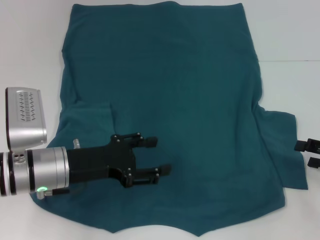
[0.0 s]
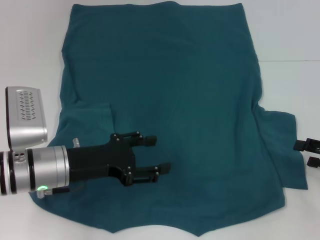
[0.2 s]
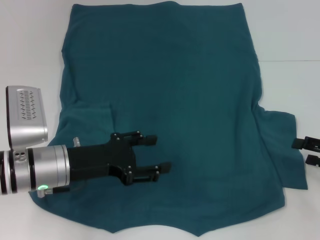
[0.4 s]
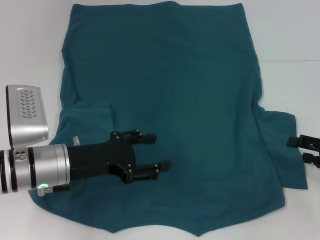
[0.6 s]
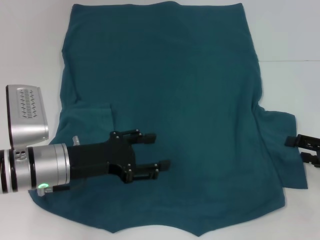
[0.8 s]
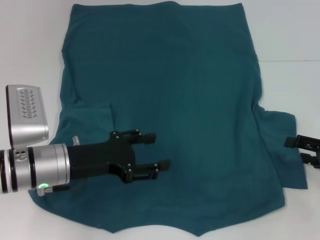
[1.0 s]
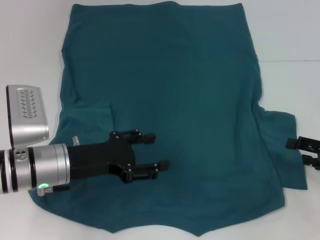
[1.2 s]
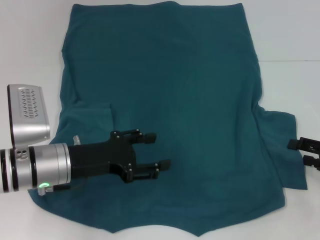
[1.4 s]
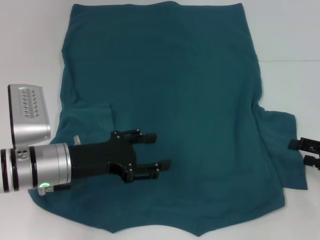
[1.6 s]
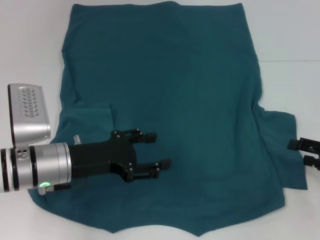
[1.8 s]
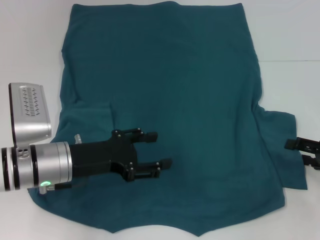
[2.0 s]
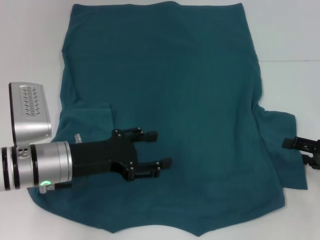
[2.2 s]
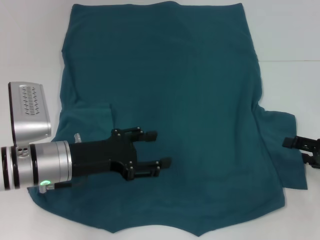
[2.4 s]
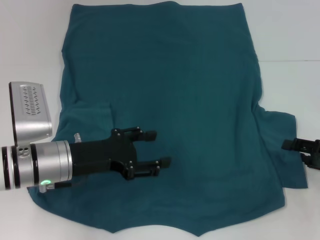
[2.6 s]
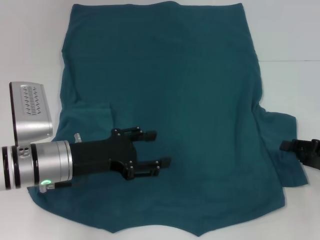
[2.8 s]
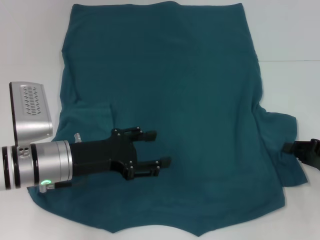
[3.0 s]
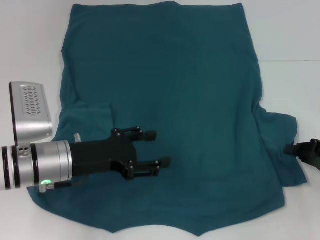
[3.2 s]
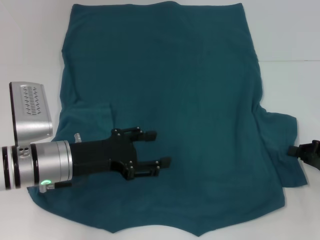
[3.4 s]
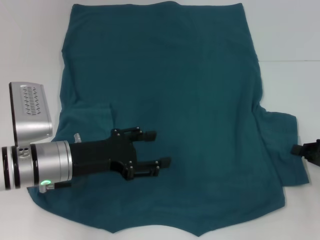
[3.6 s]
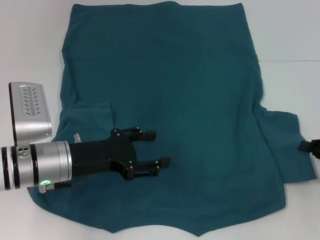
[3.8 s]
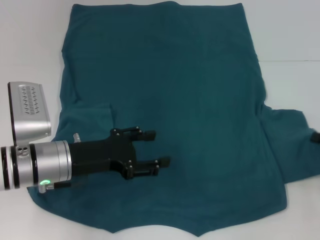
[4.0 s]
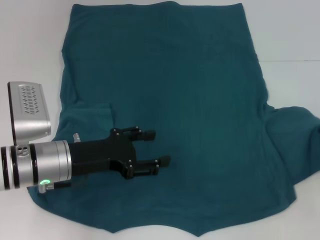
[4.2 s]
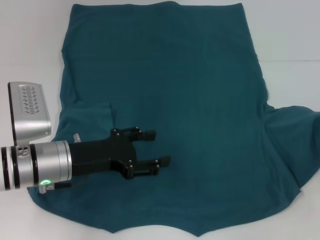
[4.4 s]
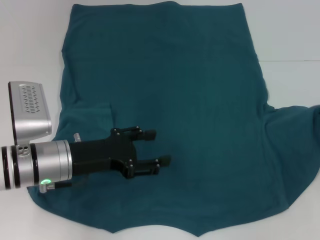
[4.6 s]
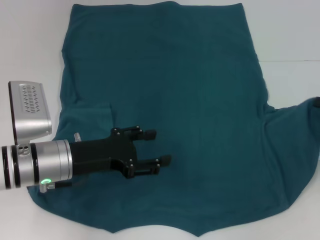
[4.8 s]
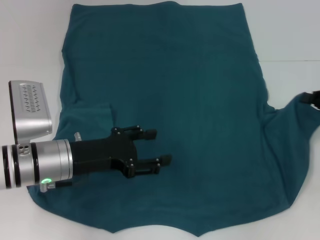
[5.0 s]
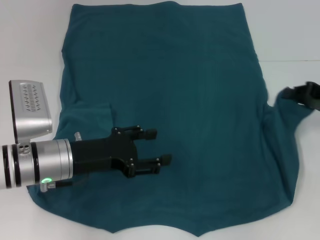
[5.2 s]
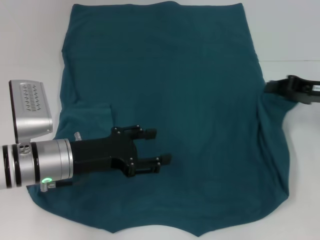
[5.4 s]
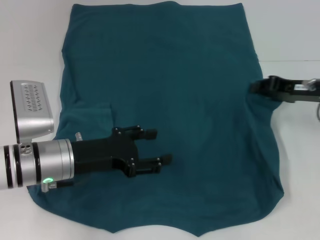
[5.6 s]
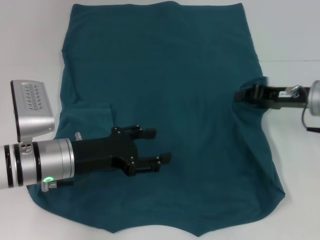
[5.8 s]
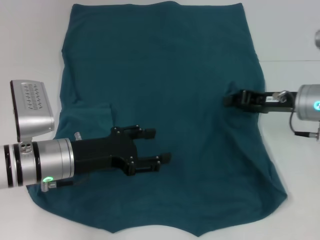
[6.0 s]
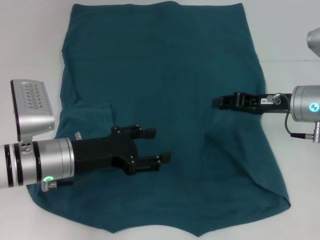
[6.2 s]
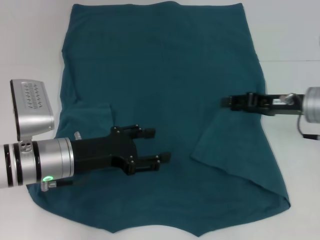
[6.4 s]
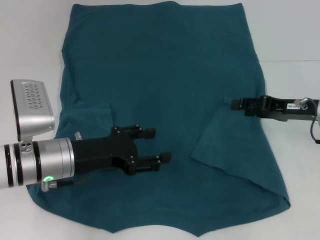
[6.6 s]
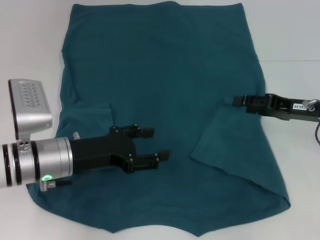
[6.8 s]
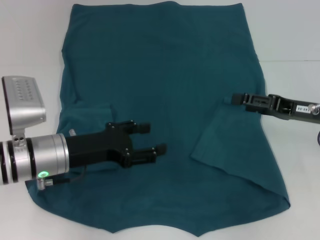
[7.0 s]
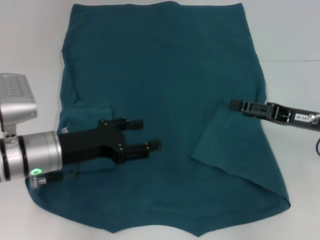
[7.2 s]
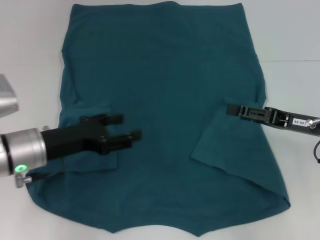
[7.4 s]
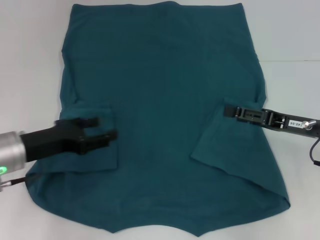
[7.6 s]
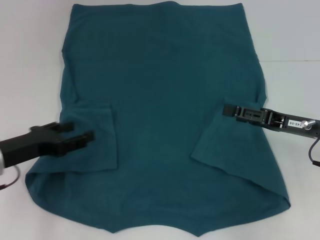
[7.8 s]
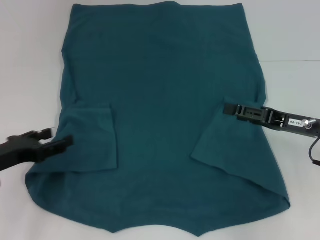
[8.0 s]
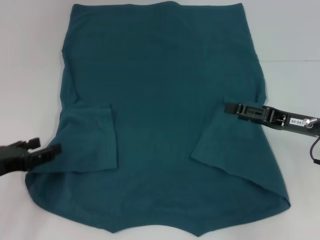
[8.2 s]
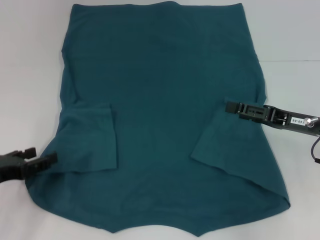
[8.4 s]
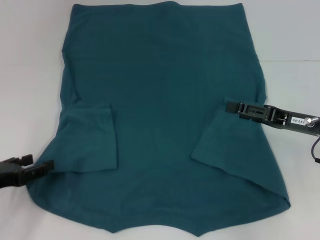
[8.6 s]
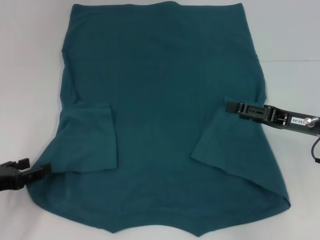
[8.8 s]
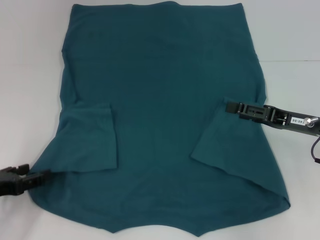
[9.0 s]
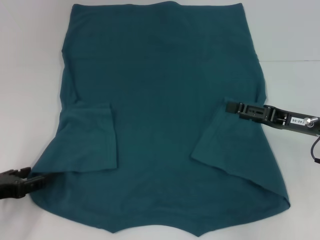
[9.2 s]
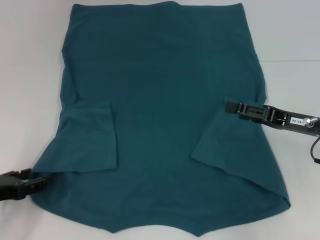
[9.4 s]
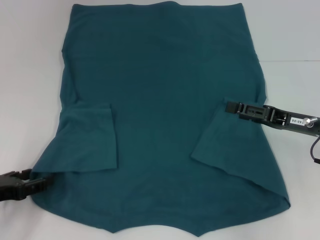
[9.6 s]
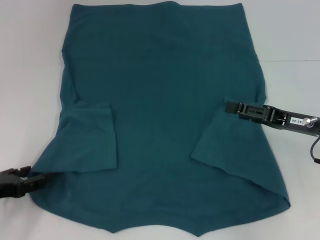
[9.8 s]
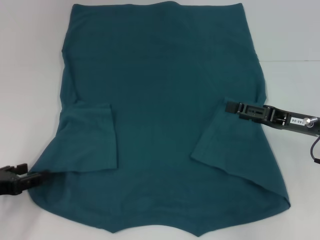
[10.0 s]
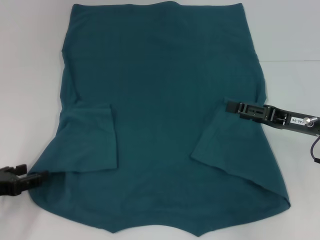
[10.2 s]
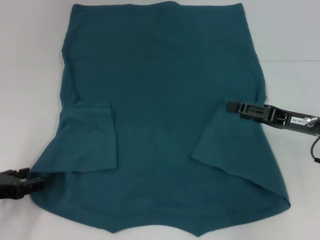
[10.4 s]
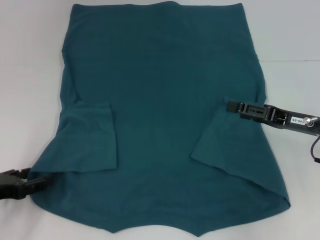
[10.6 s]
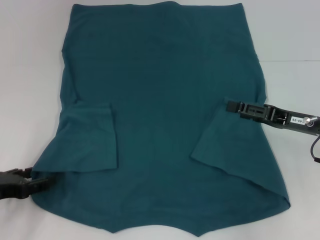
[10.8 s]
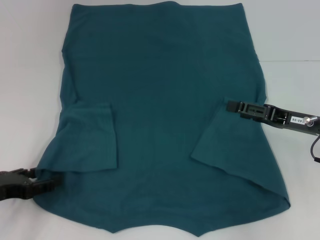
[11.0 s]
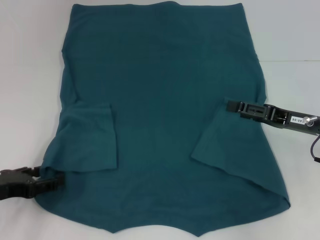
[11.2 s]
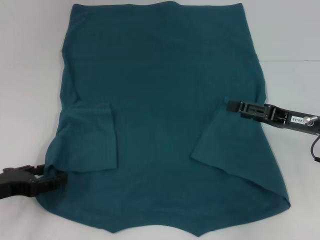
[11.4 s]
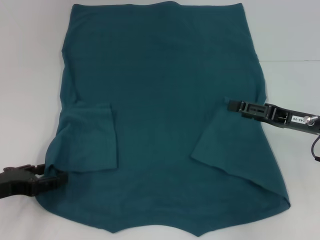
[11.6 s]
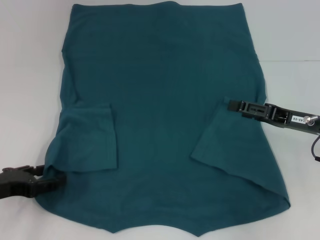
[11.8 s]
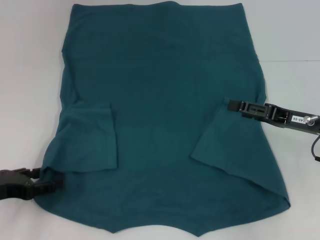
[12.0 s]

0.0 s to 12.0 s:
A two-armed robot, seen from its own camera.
Step, 0.0 to 6.2 s: Fold the bottom right sleeve to the right.
0.0 to 1.6 s: The grippers stay close to where they were, moving slightly.
1.6 to 3.0 s: The right gripper closes.
3.0 to 4.4 s: The right gripper moves approximately 5 cm, and closes up.
4.4 to 6.0 s: The right gripper goes about 15 cm to the left and forward.
6.0 to 7.6 s: The left gripper goes roughly 5 cm to the left, while the right gripper travels backward by some 5 cm, and opens its fingers.
7.6 to 9.0 s: The left gripper is displaced to the left and backward by about 10 cm.
9.0 to 10.4 s: Both grippers stay put.
10.4 to 12.0 s: There are only small adjustments of the grippers.

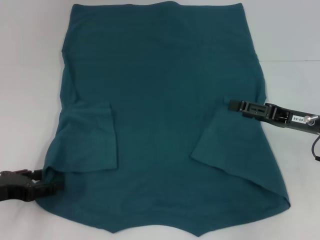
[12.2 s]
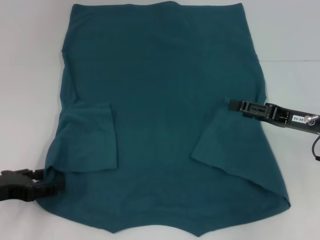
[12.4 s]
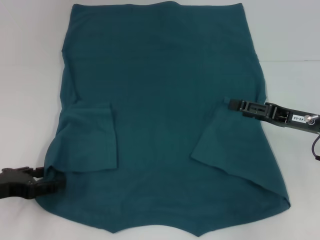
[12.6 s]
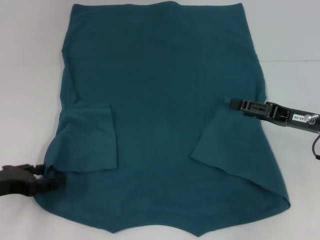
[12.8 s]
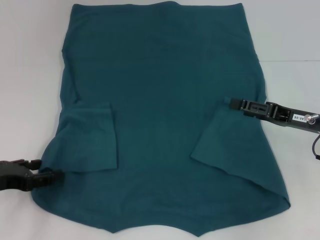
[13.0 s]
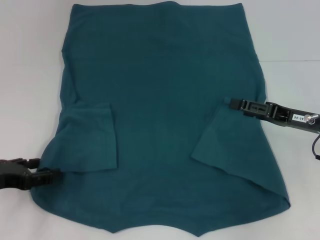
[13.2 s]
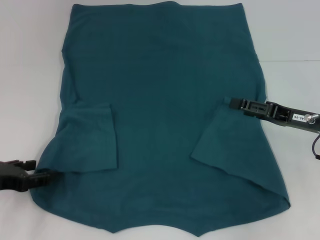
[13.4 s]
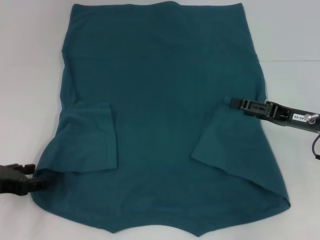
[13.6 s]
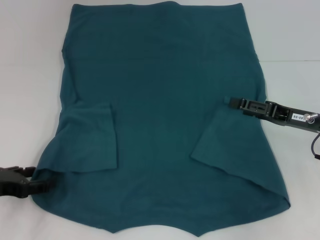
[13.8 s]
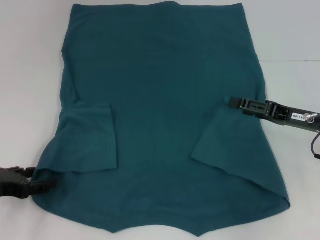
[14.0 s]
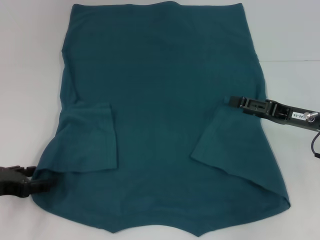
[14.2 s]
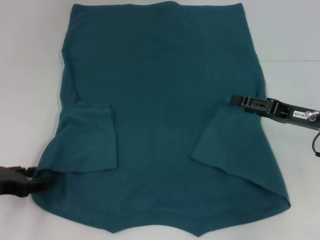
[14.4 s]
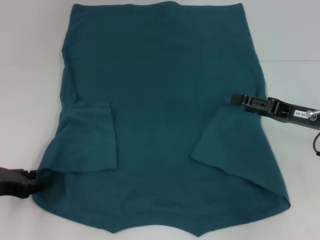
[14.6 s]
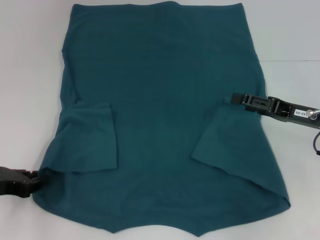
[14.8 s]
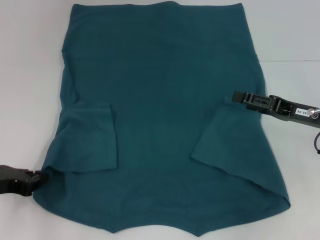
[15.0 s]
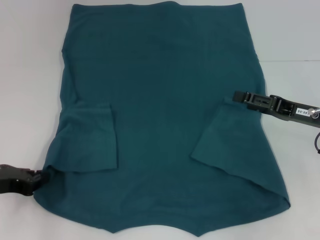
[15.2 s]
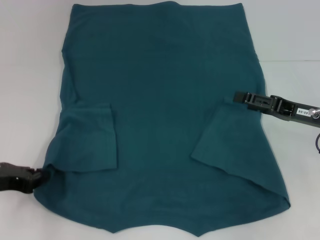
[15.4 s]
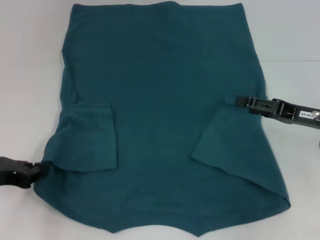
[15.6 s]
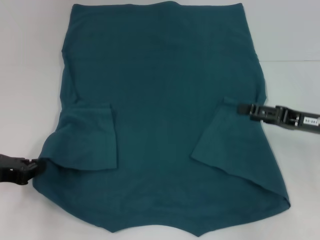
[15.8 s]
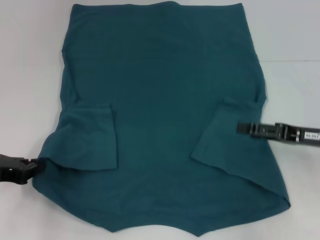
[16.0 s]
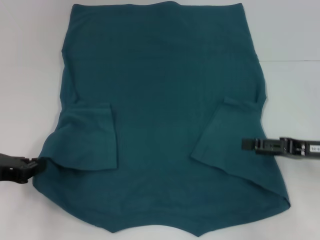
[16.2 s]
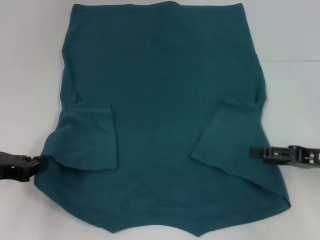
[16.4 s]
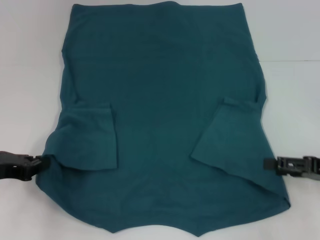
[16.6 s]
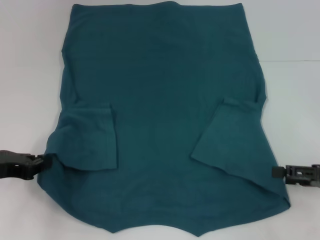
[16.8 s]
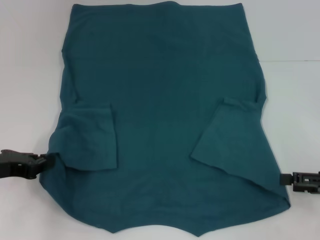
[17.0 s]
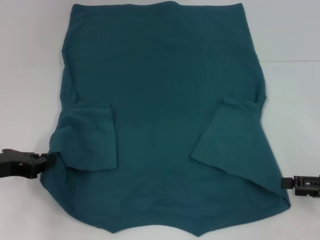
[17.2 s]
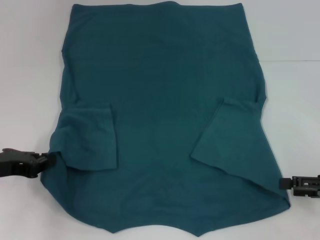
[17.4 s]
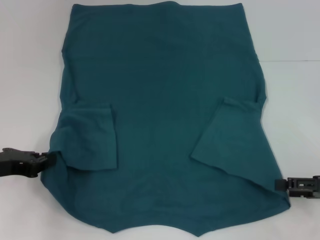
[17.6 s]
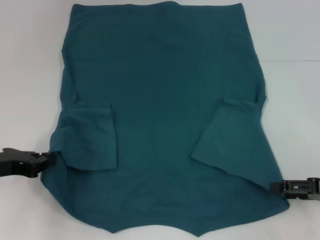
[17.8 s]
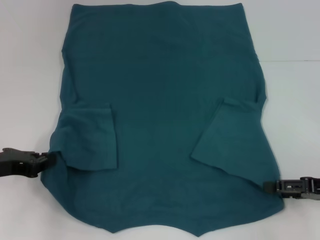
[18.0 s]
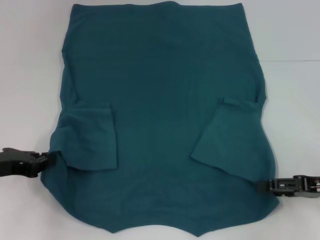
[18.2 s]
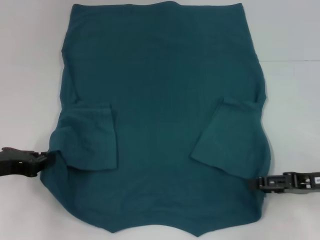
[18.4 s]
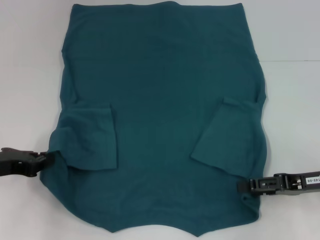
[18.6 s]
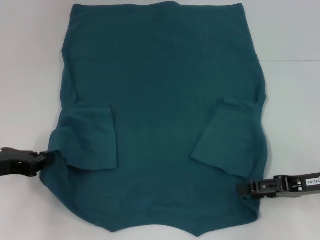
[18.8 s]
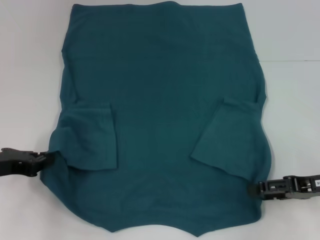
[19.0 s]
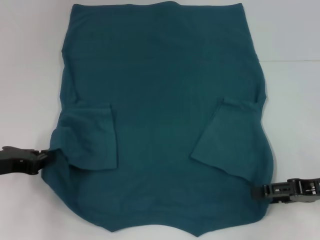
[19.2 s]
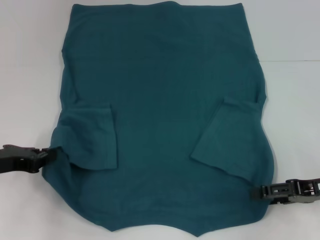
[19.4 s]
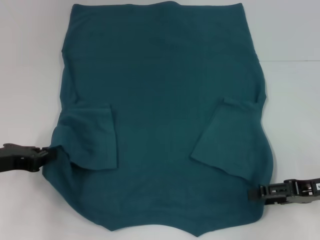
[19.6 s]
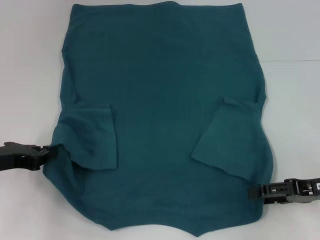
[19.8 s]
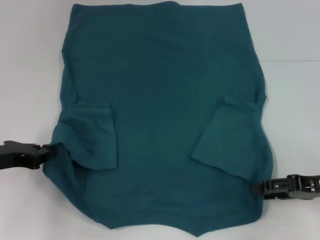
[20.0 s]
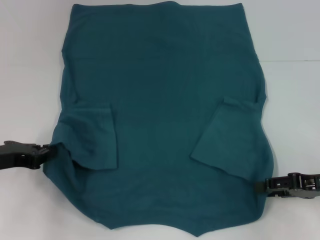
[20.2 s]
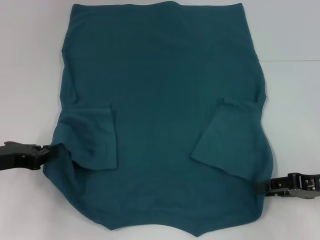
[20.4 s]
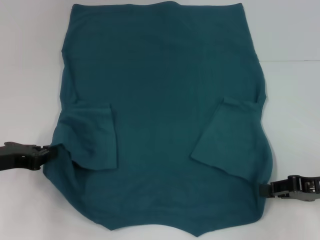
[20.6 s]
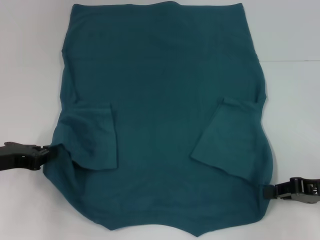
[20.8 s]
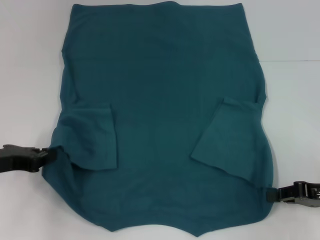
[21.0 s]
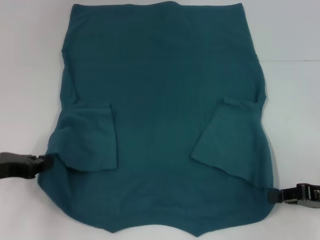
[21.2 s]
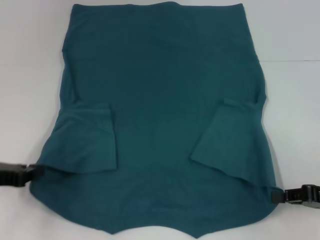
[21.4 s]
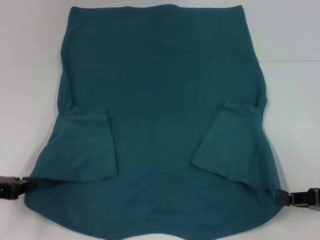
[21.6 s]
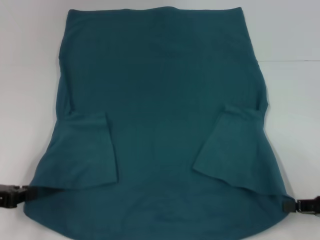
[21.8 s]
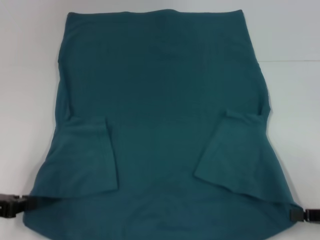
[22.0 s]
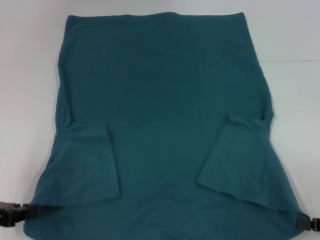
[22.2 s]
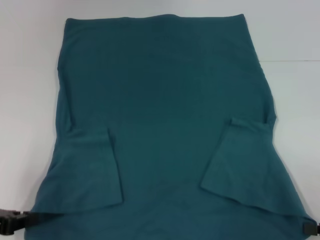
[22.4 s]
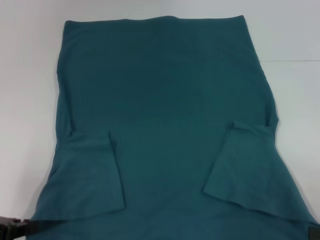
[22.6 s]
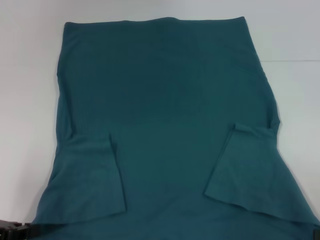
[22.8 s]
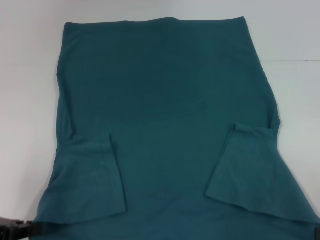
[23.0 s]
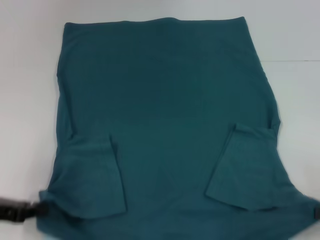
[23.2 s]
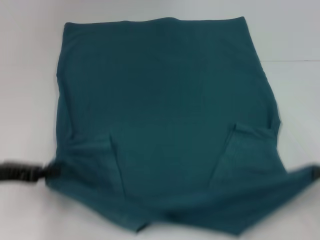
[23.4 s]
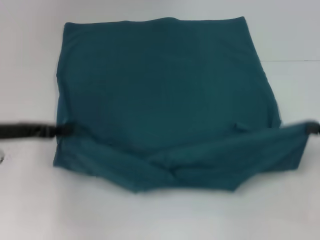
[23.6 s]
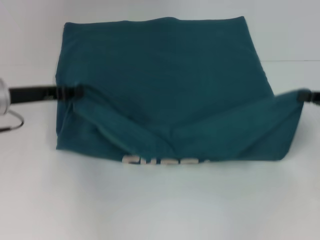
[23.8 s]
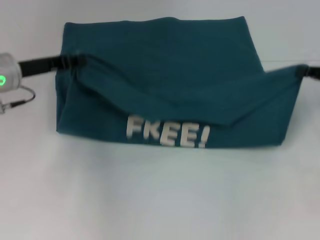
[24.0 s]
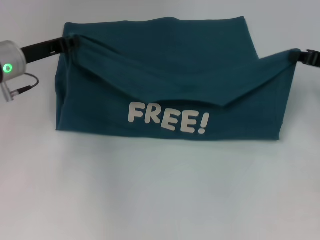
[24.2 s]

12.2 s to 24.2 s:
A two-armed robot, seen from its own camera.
Step, 12.2 to 14.6 s: Grab the bottom left corner with your left hand.
Step, 14.8 to 20.6 s: Grab the bottom right corner with your right hand.
12.2 to 13.8 s: There are only small adjustments of the grippers.
13.8 to 15.2 s: The left gripper closes.
15.2 to 16.6 s: The right gripper moves backward and to the right, about 5 cm.
16.6 to 19.8 s: The grippers move only a little.
19.8 to 21.2 s: The right gripper closes its fingers.
21.2 to 22.6 s: The two grippers go roughly 5 cm backward.
22.6 to 24.2 s: Both grippers move forward, some 20 cm.
